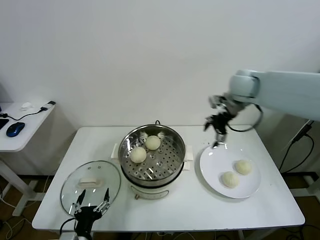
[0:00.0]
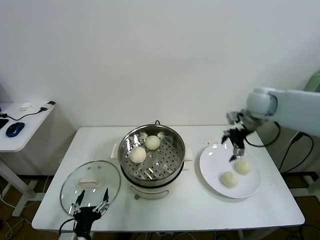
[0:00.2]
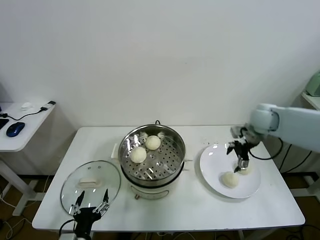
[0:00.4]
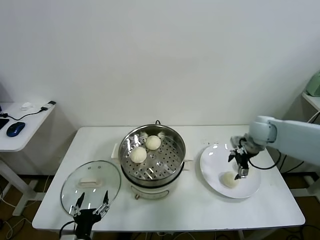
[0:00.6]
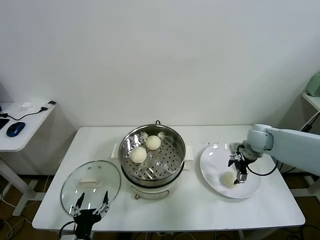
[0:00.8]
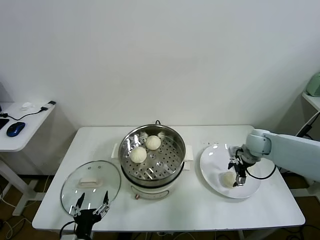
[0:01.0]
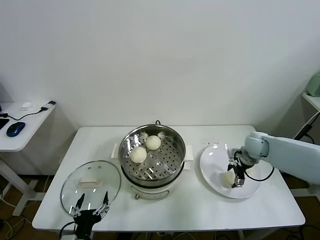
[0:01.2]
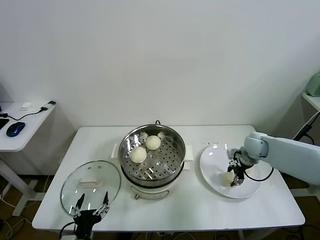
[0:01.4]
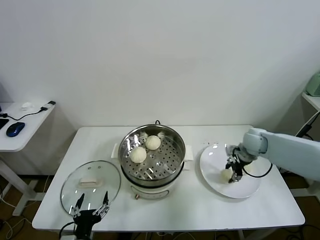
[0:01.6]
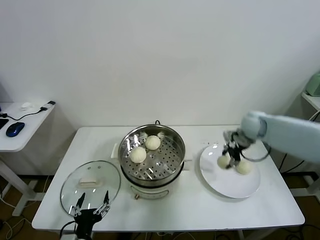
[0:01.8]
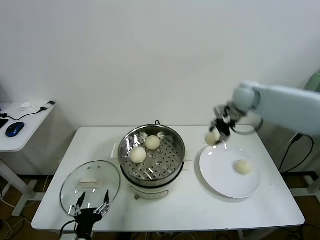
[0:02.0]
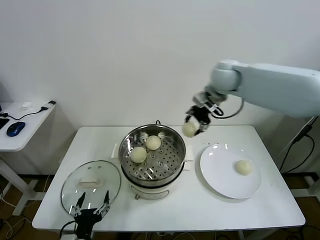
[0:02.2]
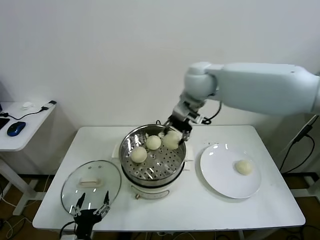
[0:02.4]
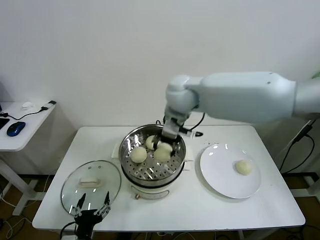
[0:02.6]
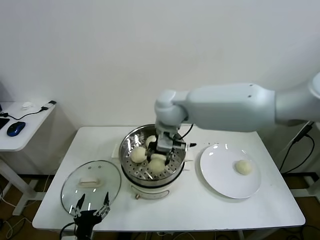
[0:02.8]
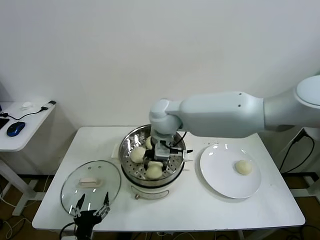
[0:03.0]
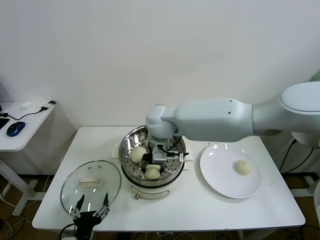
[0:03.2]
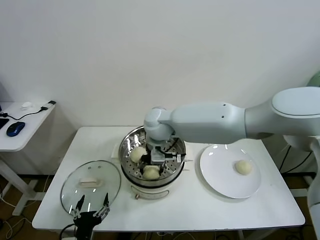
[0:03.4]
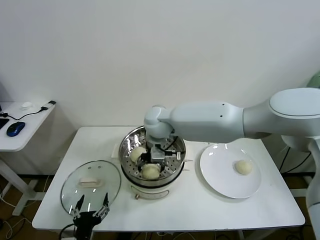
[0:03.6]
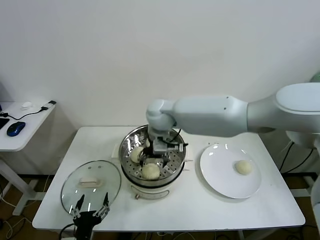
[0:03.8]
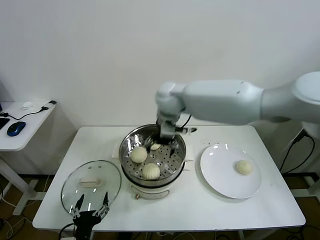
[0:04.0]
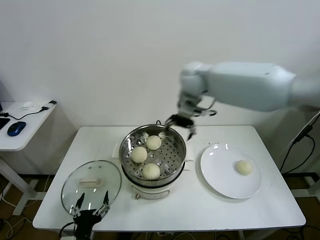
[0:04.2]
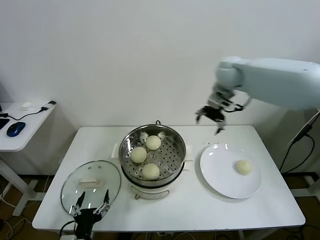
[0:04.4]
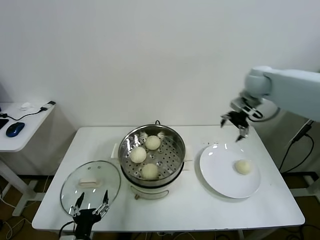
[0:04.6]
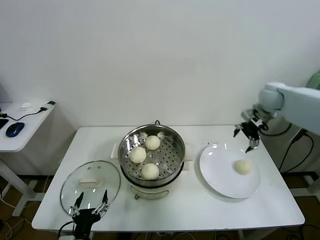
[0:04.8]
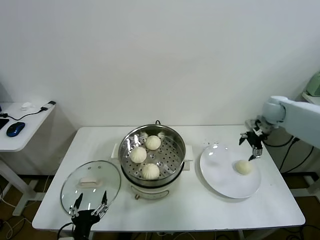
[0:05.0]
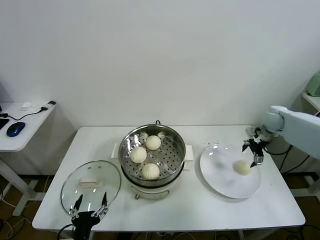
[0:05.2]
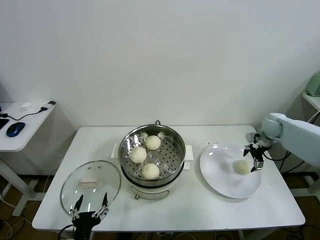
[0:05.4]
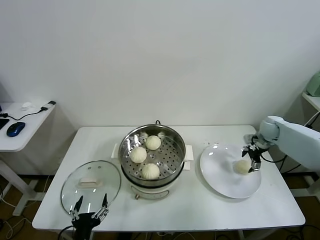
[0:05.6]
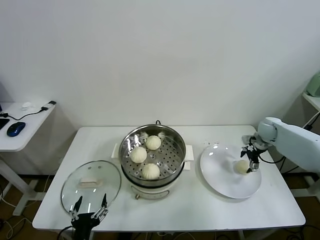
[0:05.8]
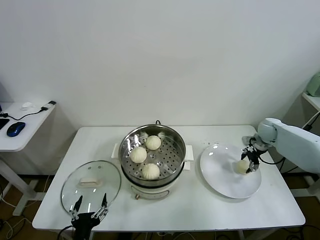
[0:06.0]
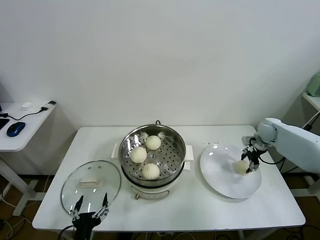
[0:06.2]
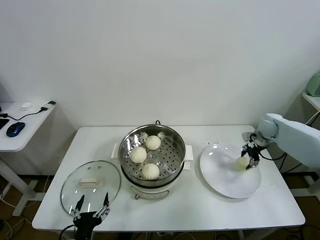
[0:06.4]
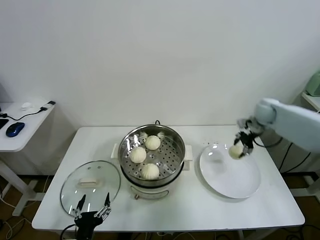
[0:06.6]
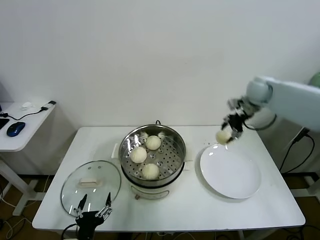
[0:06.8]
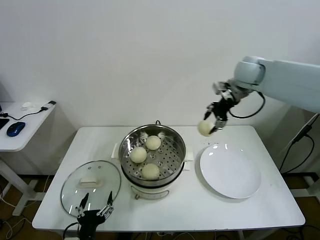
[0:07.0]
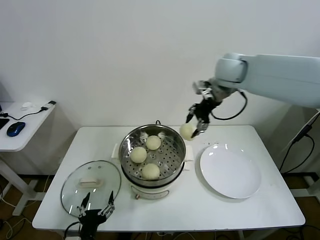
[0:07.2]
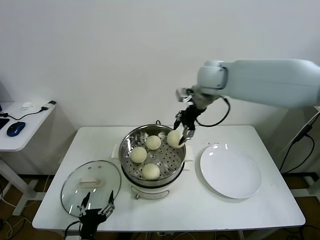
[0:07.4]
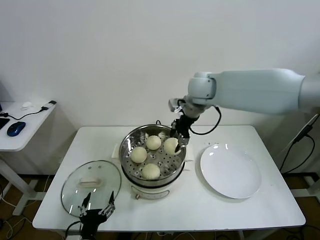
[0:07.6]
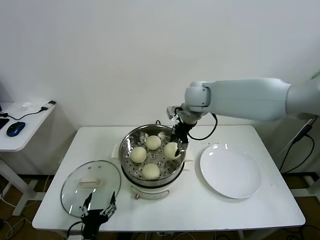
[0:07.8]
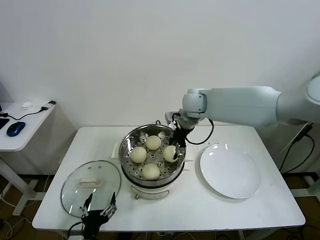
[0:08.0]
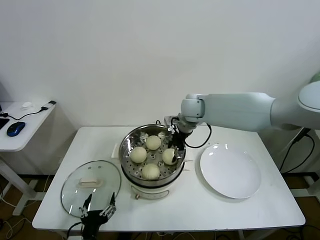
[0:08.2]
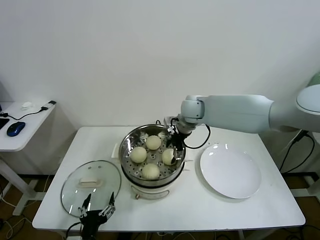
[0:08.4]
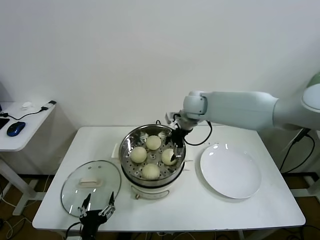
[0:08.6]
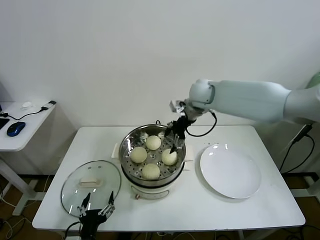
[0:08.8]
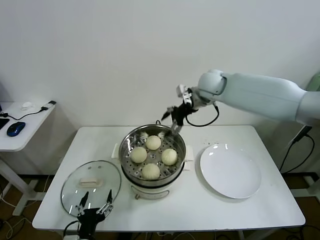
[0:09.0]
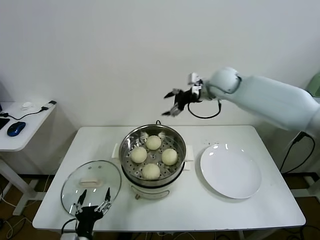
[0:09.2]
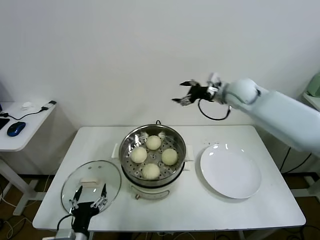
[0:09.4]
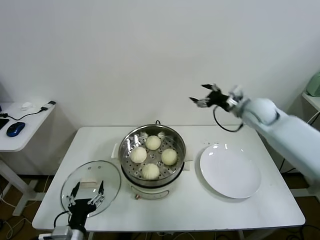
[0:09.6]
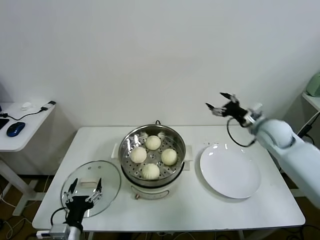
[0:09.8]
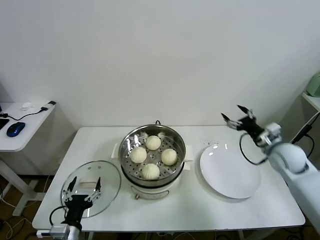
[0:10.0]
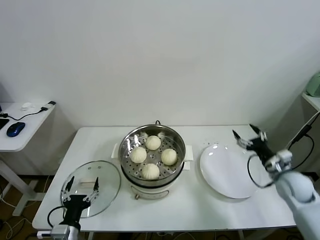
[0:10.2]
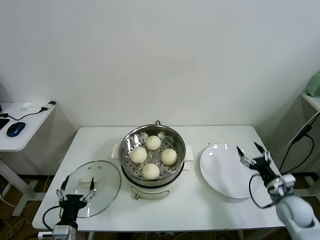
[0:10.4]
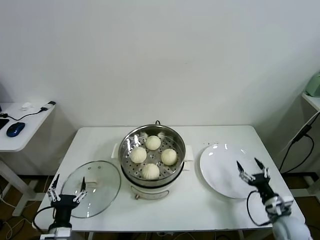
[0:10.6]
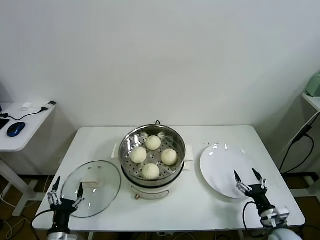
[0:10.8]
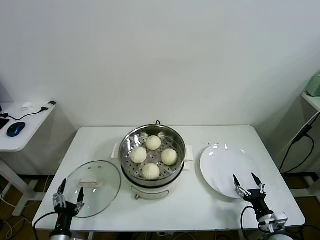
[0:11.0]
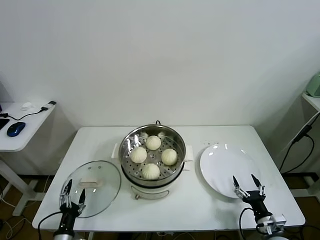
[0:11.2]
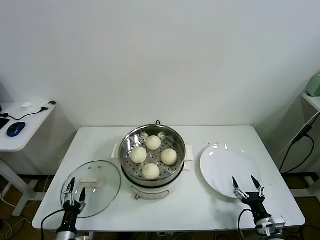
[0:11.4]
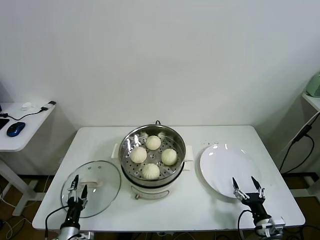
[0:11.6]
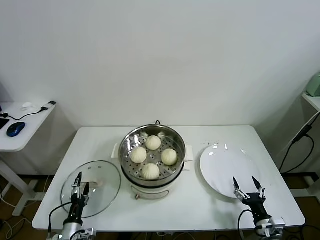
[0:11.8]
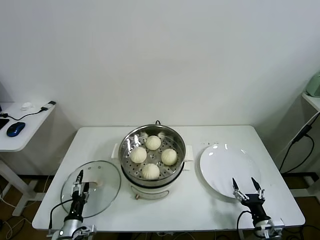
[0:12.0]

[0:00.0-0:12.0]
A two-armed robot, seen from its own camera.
Task of the whole recording: take steamed baozi put them in steamer.
Step, 0.0 to 1.4 s: Grasp the baozi in the plate with right gripper.
Step, 1.8 to 3.8 s: Place the baozi on the steamer with right gripper.
Step, 4.0 to 6.2 s: Grasp the baozi in the plate with right gripper.
Step, 6.4 to 8.6 s: Place the baozi on the steamer with right gripper.
0.0 to 1.6 s: The right gripper moves downward and to the right, approximately 25 cm, and closes.
1.6 to 3.0 s: The right gripper shifts some 40 cm to the left and upward.
3.0 to 4.4 s: The right gripper goes approximately 25 cm to the right and forward, and opens up.
4.4 to 6.0 s: The right gripper heads downward and to the right, covering some 35 cm, and closes.
6.0 to 7.6 s: The right gripper shifts roughly 40 cm to the left and upward, and closes.
7.6 to 9.0 s: The right gripper goes downward and returns, some 10 cm each way, and opens up.
9.0 to 10.4 s: The right gripper travels downward, backward and to the right by about 50 cm. Meanwhile the left gripper goes about 5 cm to the left.
10.4 to 12.0 s: The right gripper heads backward, downward and to the left, covering about 15 cm. The left gripper shifts approximately 10 cm downward.

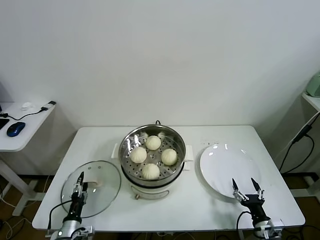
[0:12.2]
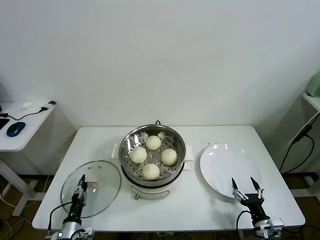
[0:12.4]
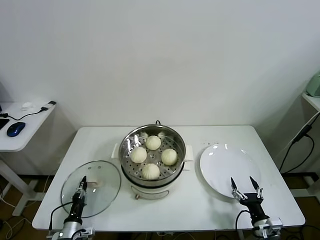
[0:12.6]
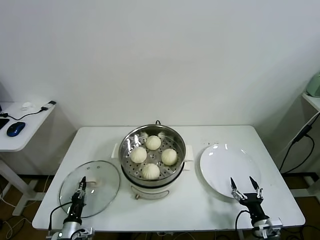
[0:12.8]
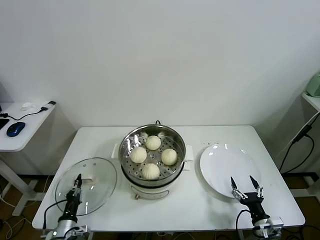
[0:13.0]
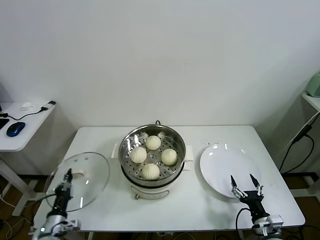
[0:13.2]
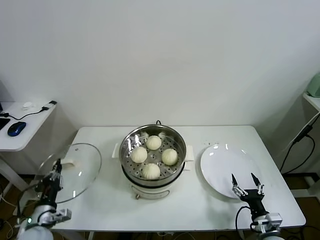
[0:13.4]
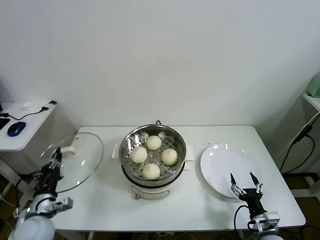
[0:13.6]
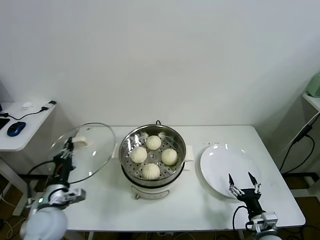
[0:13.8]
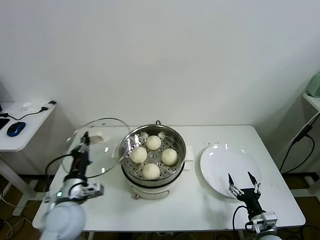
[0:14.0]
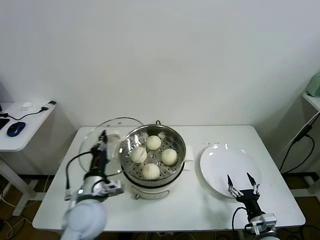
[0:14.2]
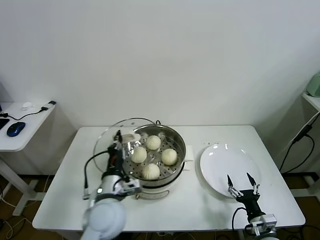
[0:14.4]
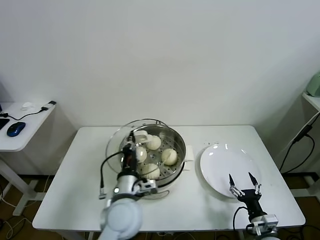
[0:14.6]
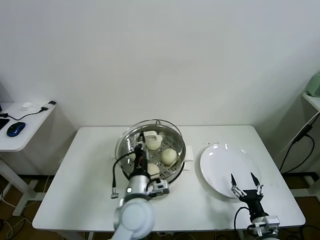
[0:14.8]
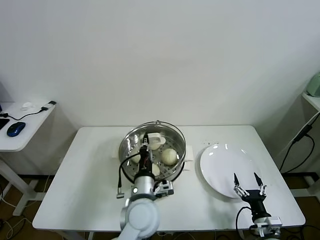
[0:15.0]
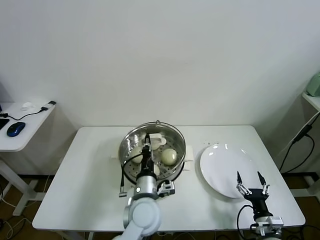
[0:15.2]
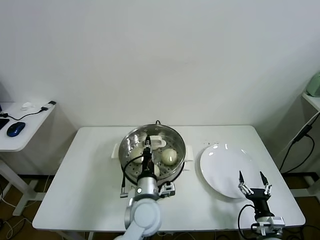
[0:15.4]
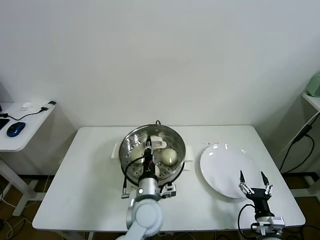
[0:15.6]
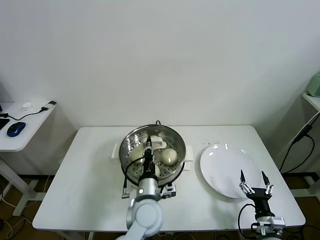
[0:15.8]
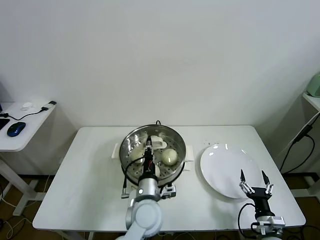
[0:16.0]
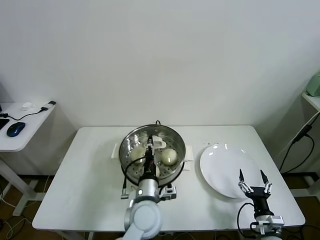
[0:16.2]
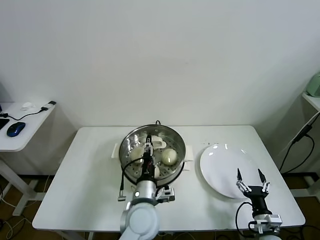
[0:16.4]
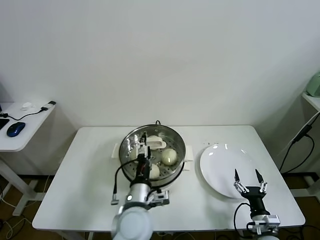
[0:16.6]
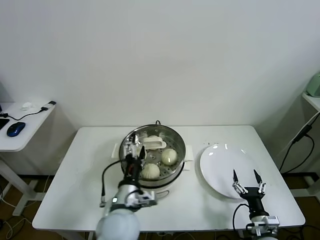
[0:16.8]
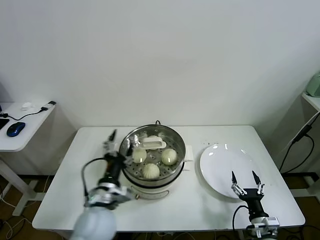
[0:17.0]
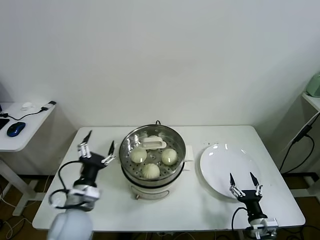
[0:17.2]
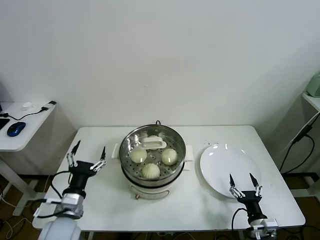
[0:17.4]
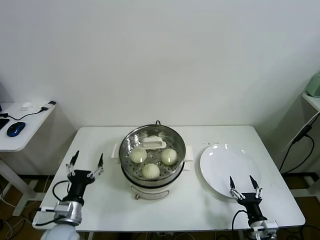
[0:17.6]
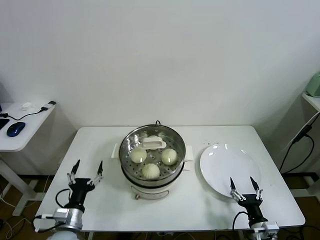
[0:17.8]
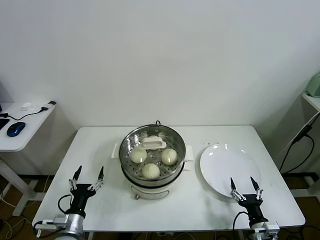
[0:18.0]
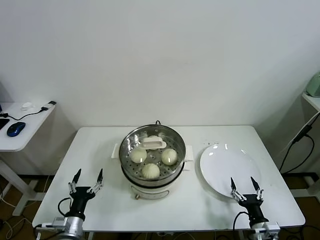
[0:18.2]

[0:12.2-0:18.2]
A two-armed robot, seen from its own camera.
Task of the whole recording: take steamed baozi put them in steamer.
Step, 13.0 to 16.6 s: Place the pot lid on the steamer with left gripper.
12.2 to 13.8 s: The left gripper moves upward, some 20 cm, and closes.
13.8 to 15.2 s: The left gripper travels to the right by about 30 cm.
15.2 to 16.6 s: The left gripper opens.
16.6 to 18.2 s: The left gripper travels to the left and downward by approximately 25 cm.

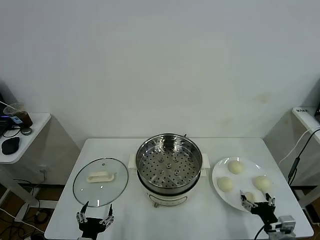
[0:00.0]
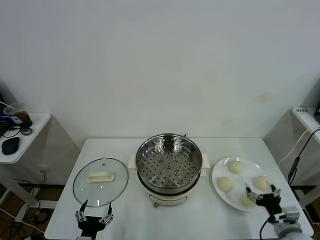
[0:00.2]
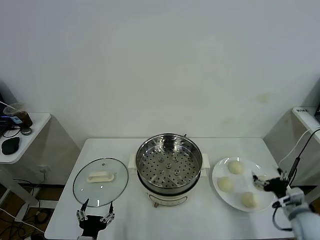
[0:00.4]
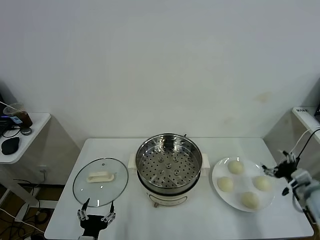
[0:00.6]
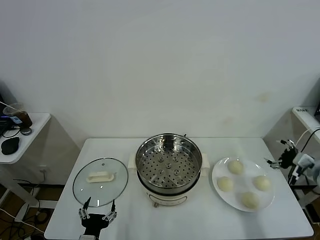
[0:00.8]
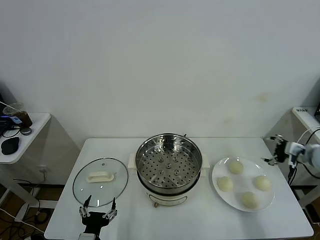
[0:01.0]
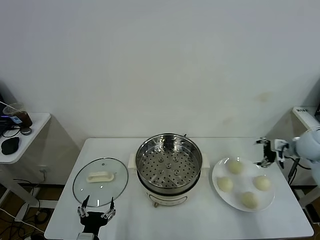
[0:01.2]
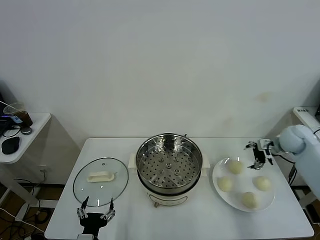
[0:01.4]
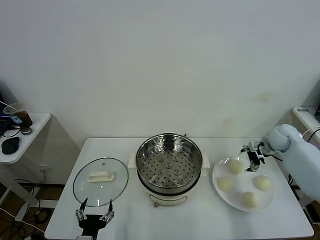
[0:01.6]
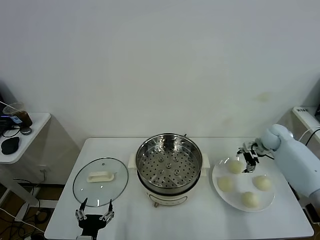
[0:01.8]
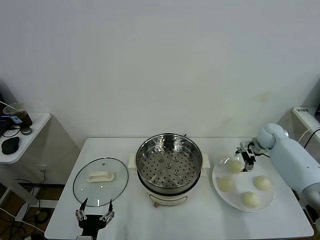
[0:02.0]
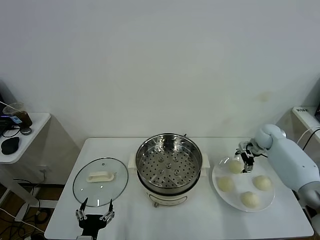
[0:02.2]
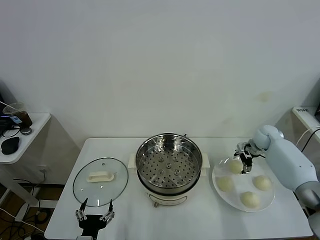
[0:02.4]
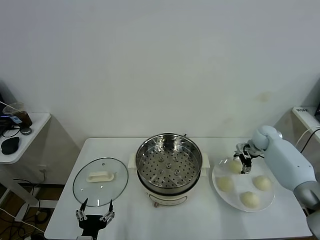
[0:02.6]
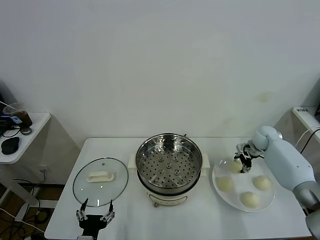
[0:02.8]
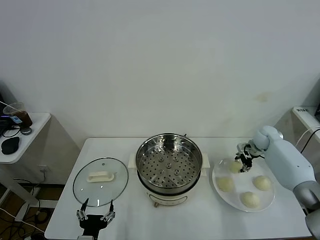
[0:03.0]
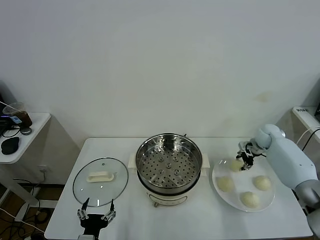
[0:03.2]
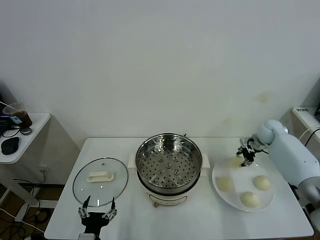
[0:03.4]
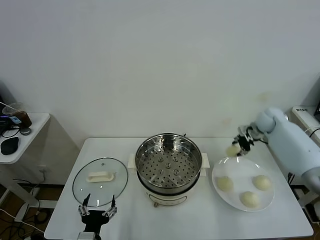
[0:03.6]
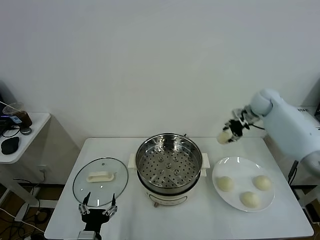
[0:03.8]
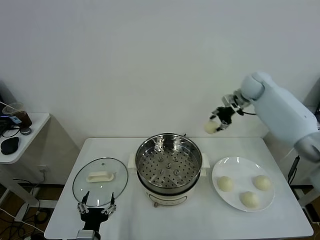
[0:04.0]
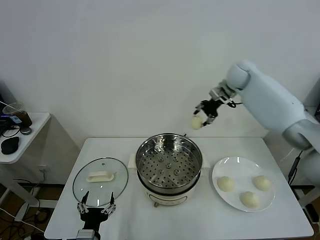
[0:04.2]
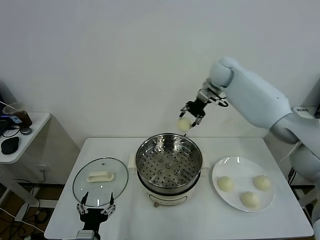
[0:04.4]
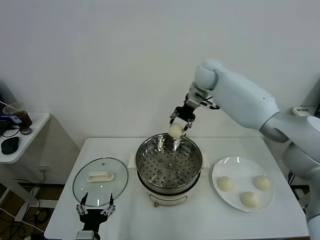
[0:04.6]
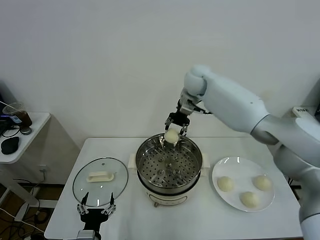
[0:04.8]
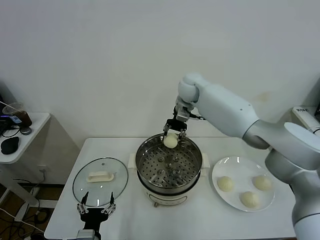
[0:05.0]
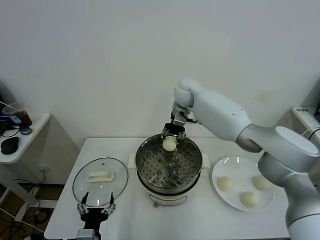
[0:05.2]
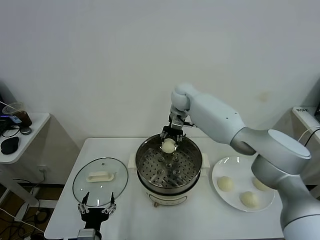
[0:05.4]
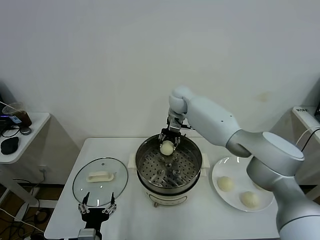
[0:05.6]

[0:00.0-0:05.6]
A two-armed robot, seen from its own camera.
Task of the whole recording: take steamed baozi put them in steamer.
Step, 0.0 to 3.0 s: Grasp the baozi in the plate with right gripper.
1.4 to 2.8 s: The right gripper goes about 10 cm downward and forward, and closes up.
2.8 to 4.2 s: The right gripper goes some 30 cm upward and to the left.
4.2 to 5.6 s: The right gripper shifts about 20 cm to the left and downward.
